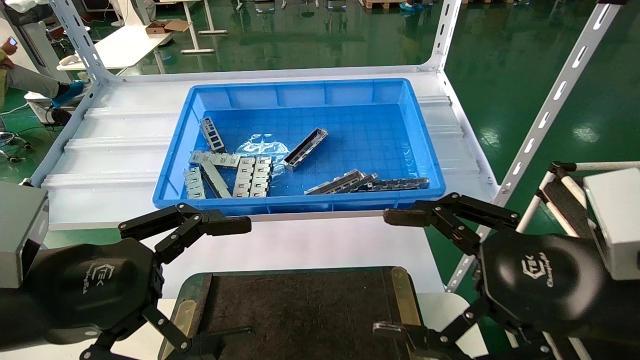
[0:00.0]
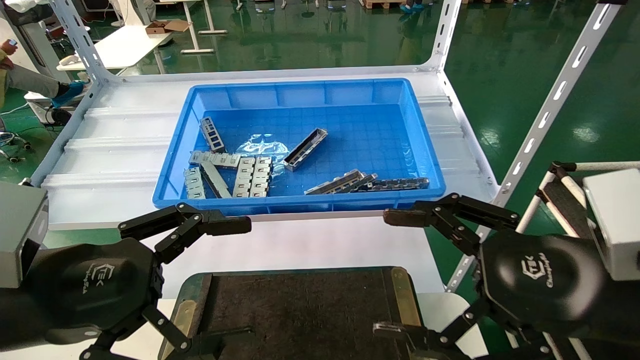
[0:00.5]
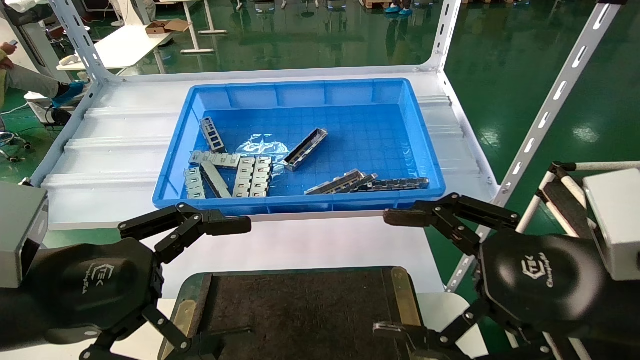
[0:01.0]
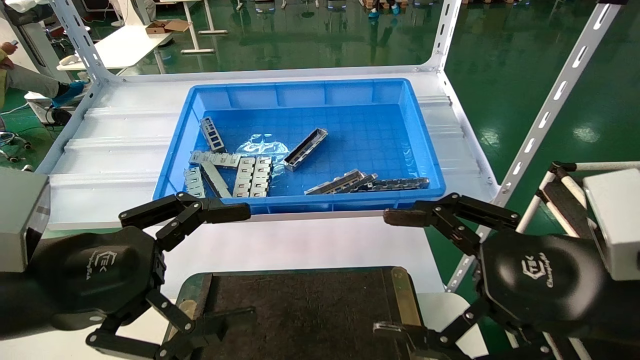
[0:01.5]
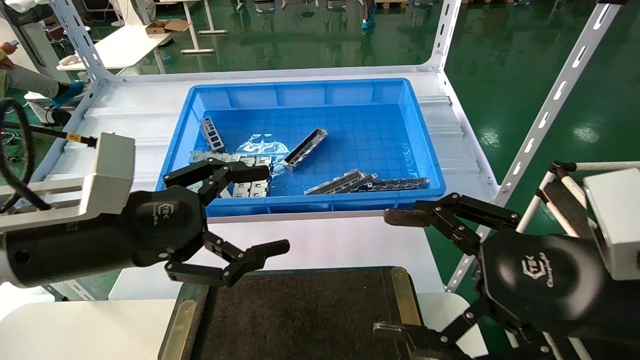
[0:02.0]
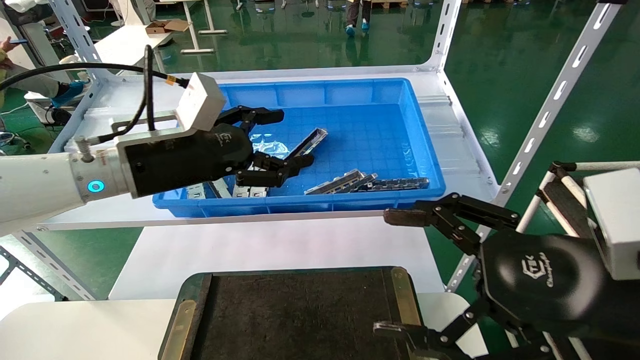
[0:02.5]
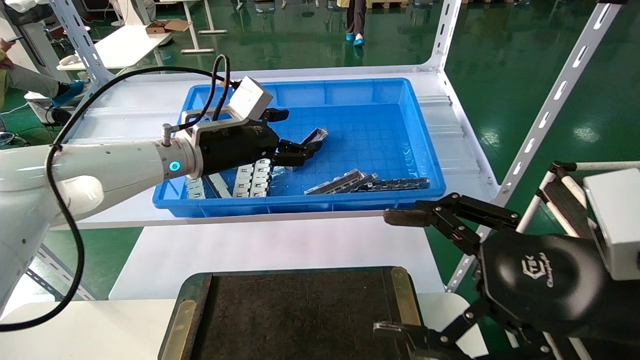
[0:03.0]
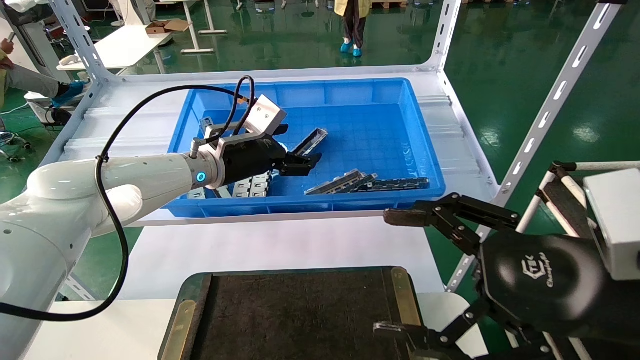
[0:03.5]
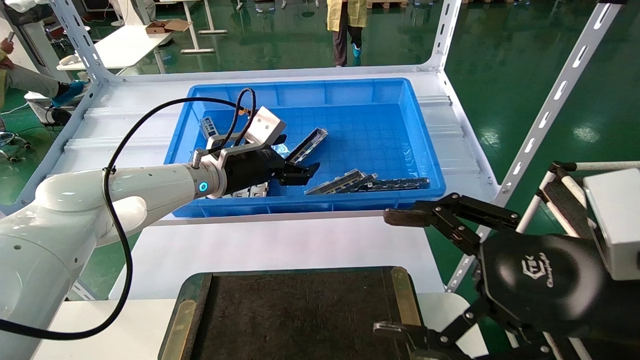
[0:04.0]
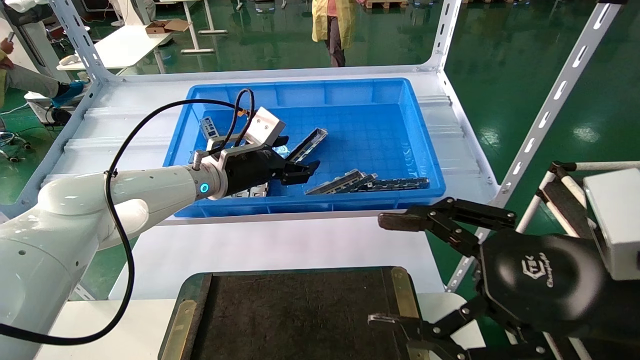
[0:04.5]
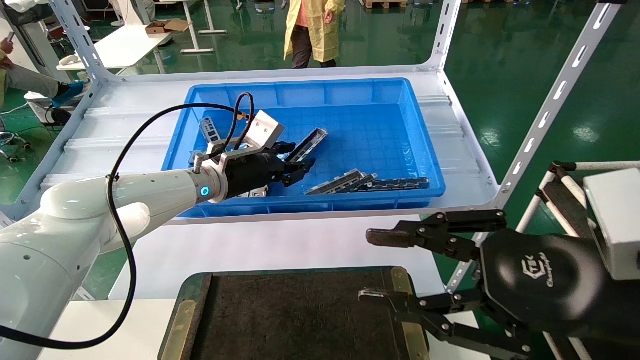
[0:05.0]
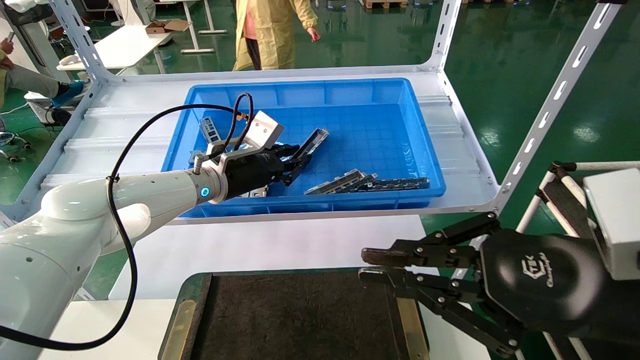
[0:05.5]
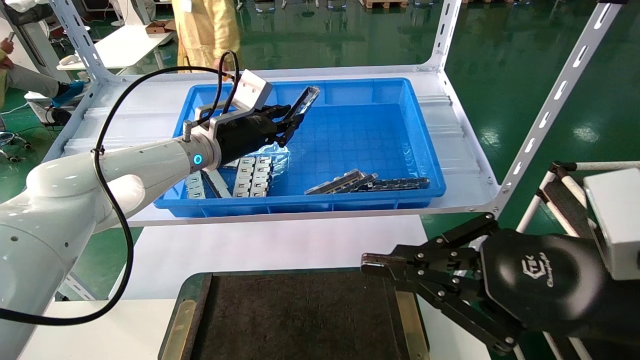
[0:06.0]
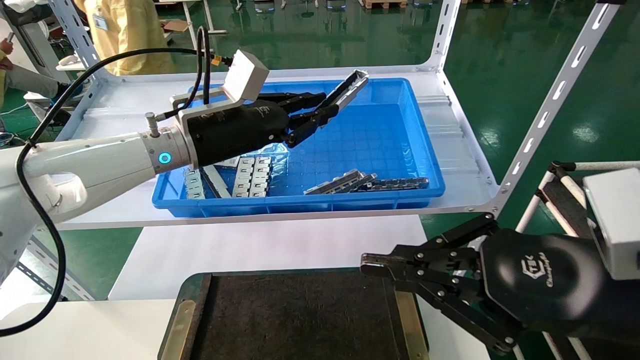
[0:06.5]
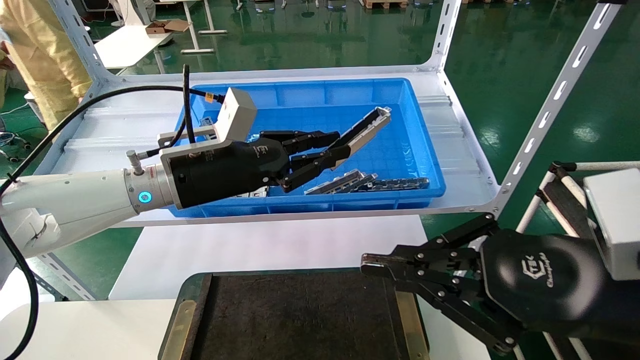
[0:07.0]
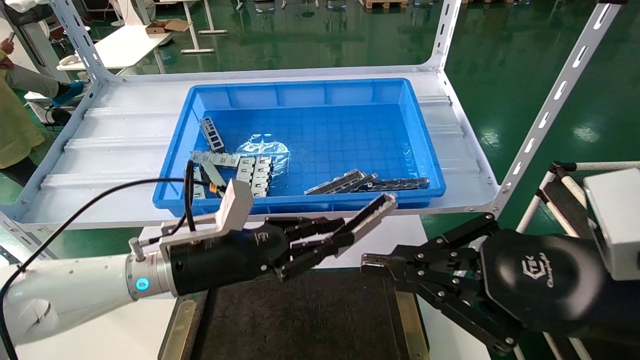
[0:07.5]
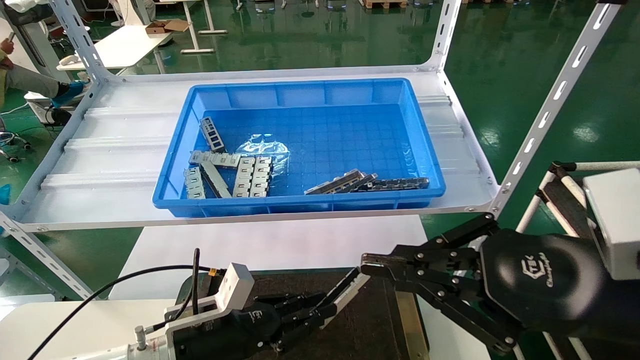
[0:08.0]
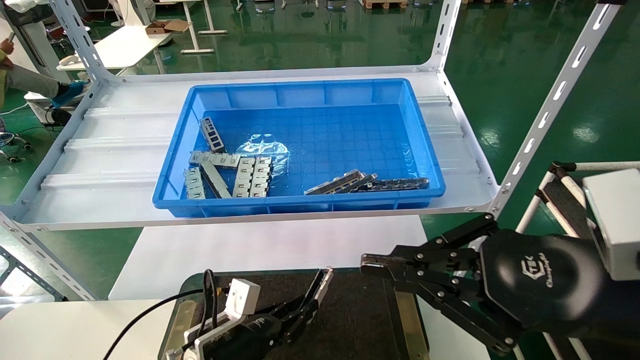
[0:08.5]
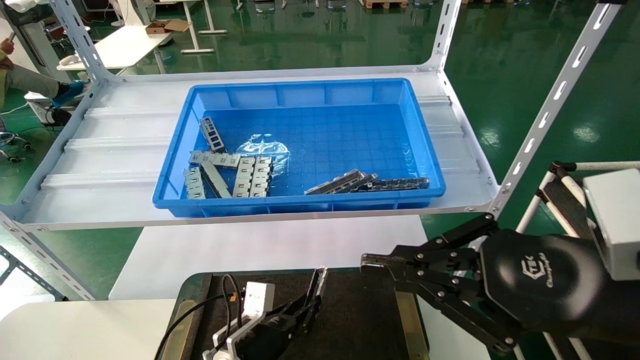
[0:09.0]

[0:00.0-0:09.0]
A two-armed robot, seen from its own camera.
Task of the whole recording: Grasp the part with one hand and place it on the black container.
Step, 0:02.0 to 0:06.0: Pick up the front USB bracket from the feeding area.
0:00.0 to 0:02.0: The left gripper is displaced forward by about 5 cm.
0:02.0 to 0:04.5: The left gripper moves forward, roughly 25 cm.
0:04.5 to 0:07.0: The right gripper closes up. Meanwhile the left gripper moves backward, roughly 10 cm, and closes up.
0:07.0 to 0:09.0: The left gripper moves downward, some 30 cm.

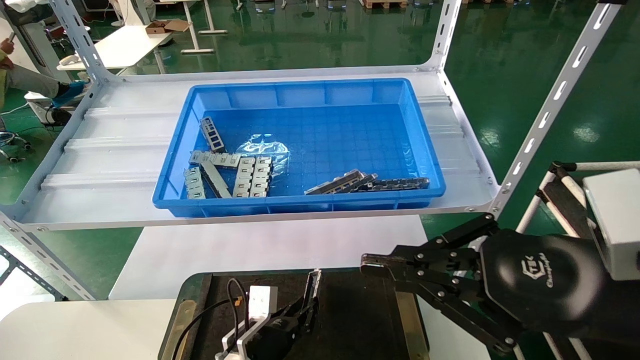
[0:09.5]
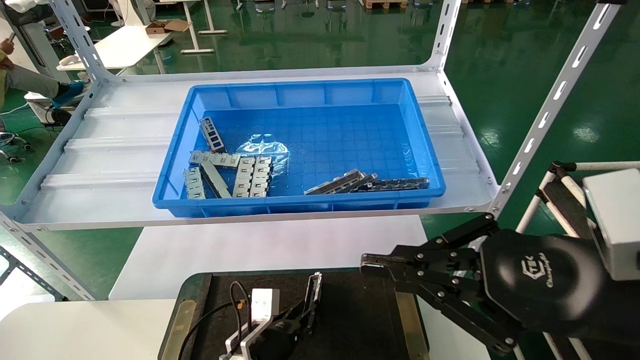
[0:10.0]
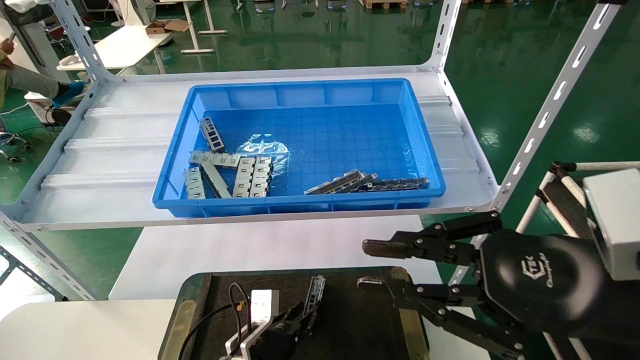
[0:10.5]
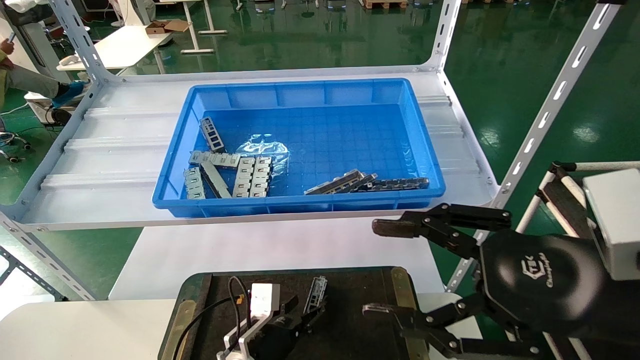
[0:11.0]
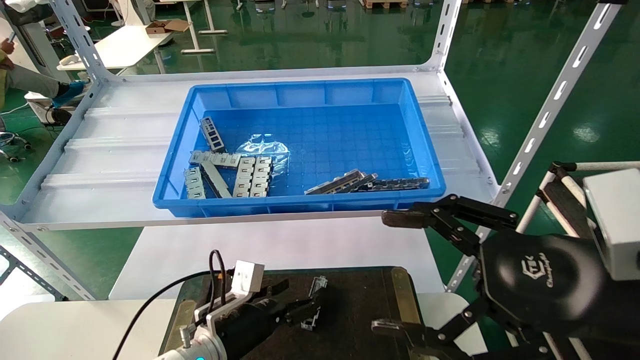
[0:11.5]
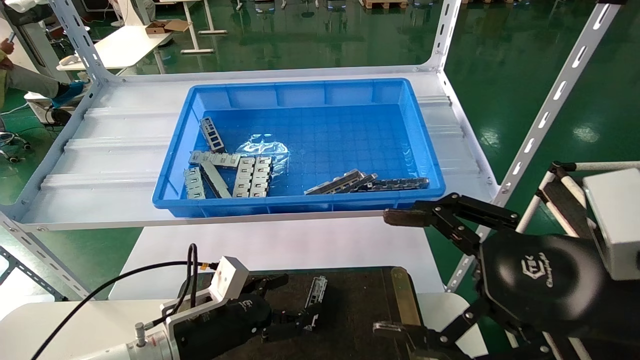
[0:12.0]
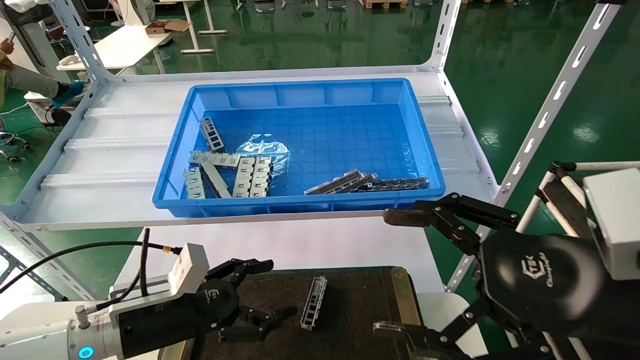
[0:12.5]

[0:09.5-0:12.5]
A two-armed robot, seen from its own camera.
Task of the whole recording: Grasp the part with one hand and place it on the black container.
0:09.5 to 0:11.0: The left gripper opens up, while the right gripper opens.
0:11.0 to 0:12.5: The right gripper opens; the left gripper heads to the left and upward, covering about 20 cm, and opens.

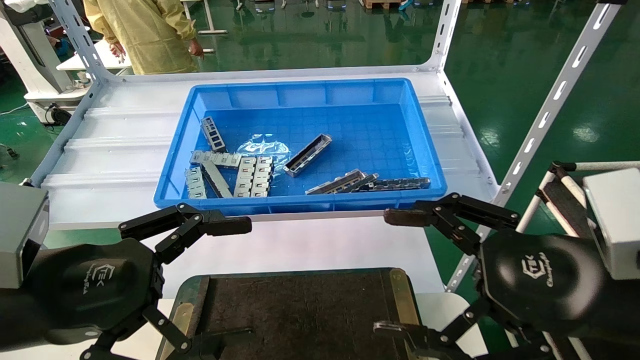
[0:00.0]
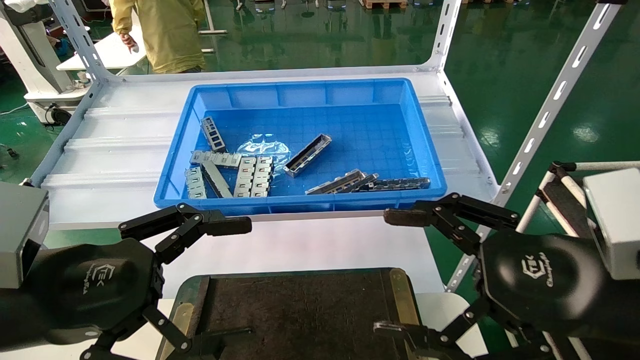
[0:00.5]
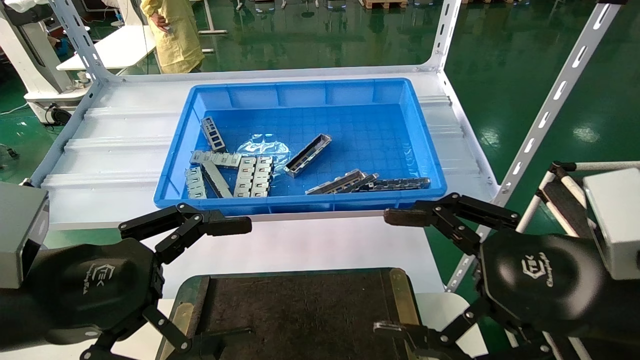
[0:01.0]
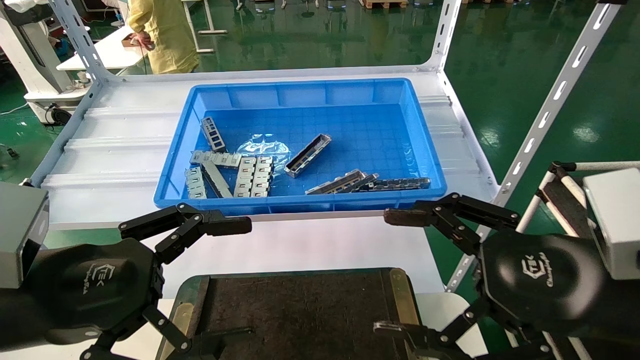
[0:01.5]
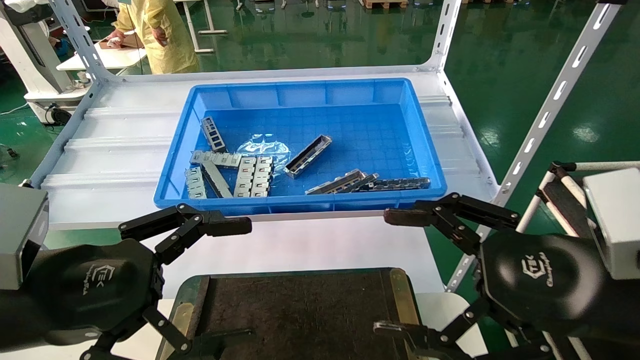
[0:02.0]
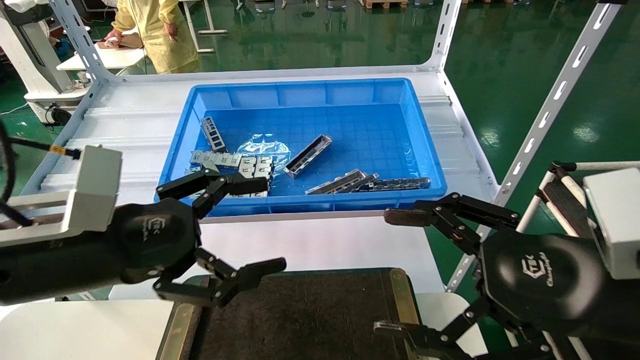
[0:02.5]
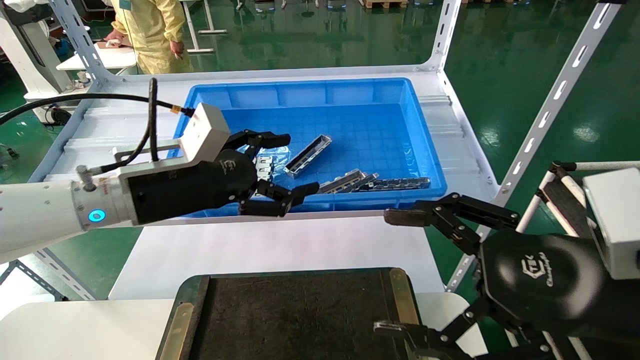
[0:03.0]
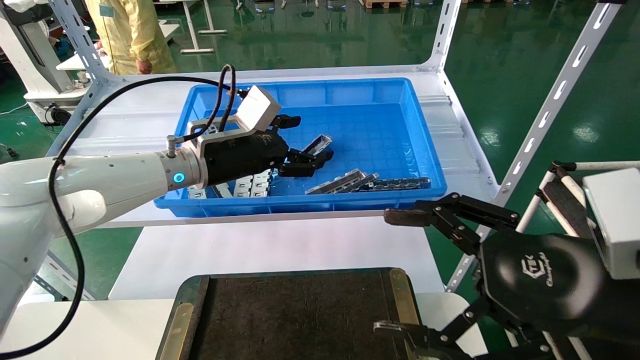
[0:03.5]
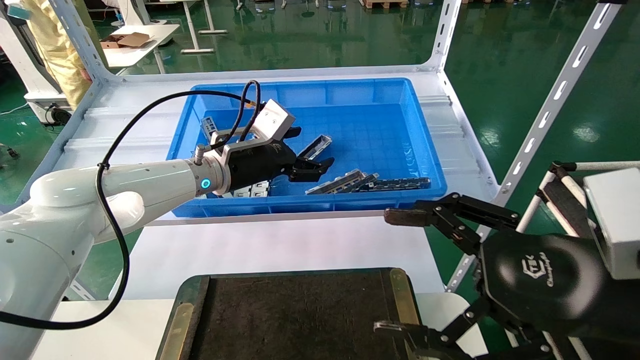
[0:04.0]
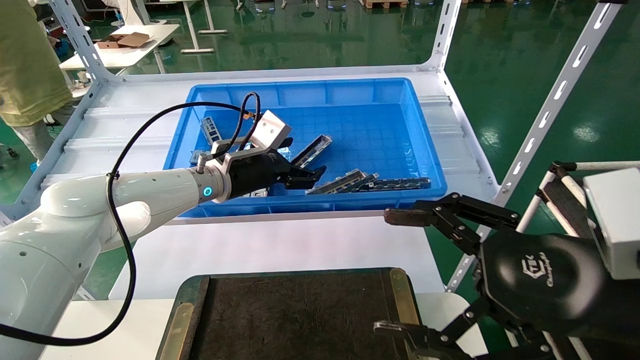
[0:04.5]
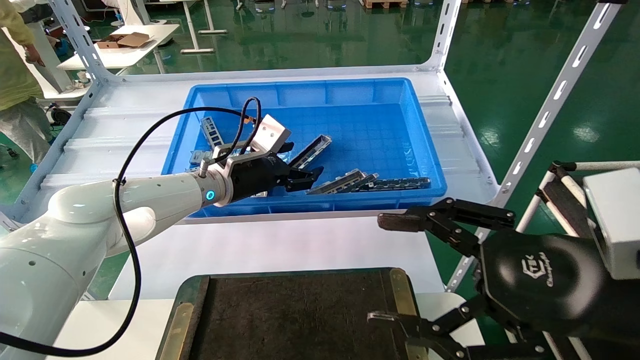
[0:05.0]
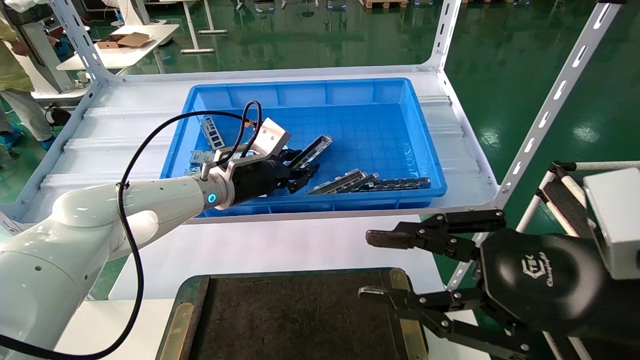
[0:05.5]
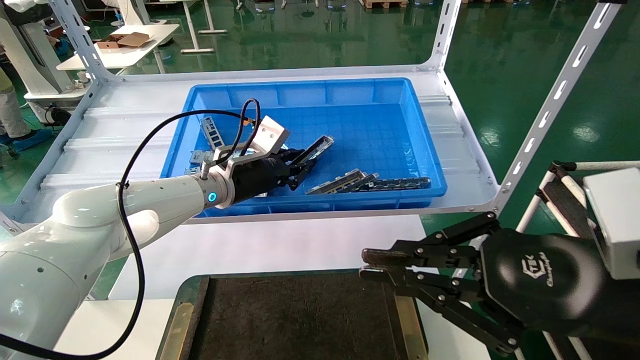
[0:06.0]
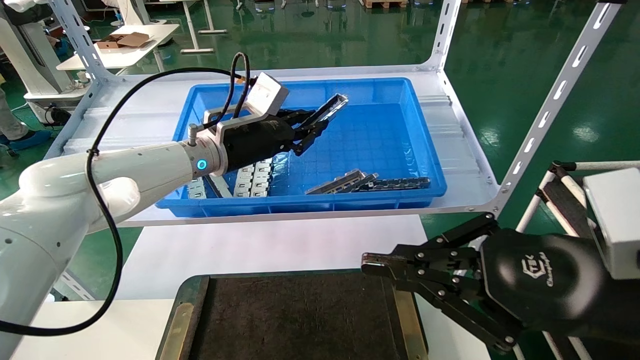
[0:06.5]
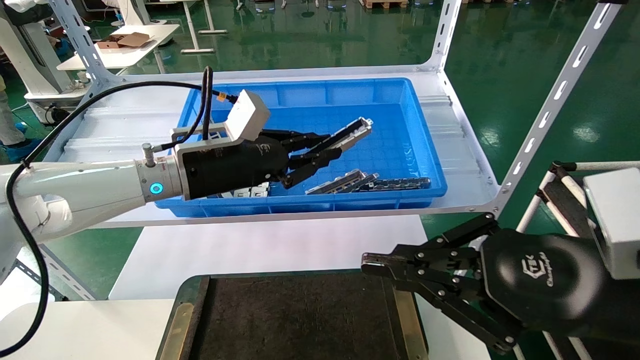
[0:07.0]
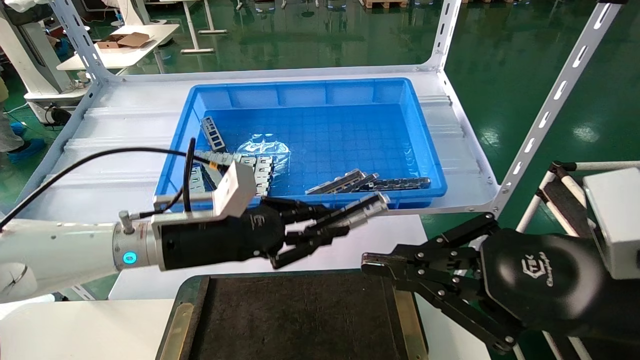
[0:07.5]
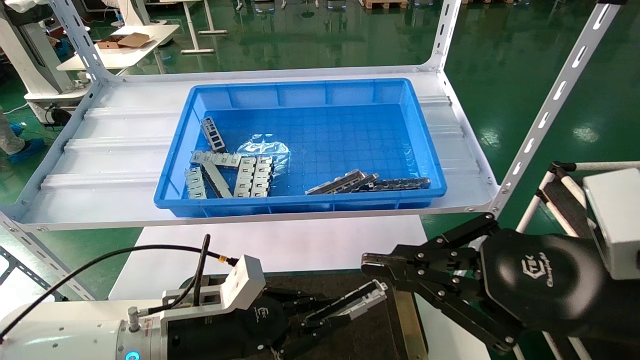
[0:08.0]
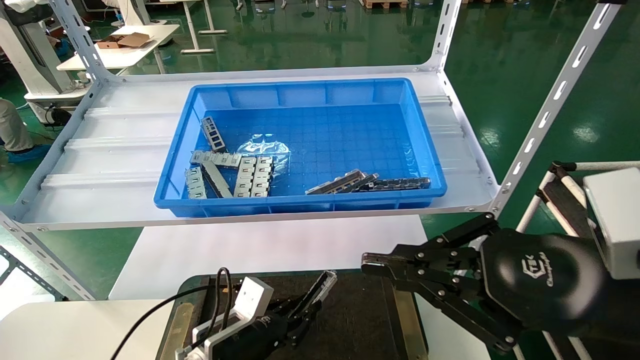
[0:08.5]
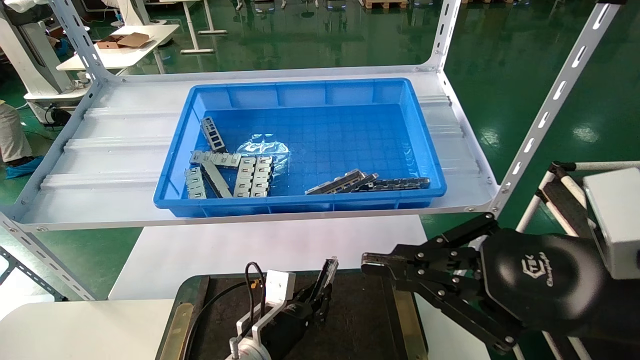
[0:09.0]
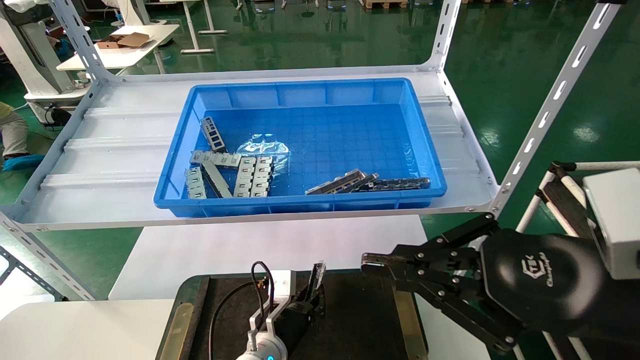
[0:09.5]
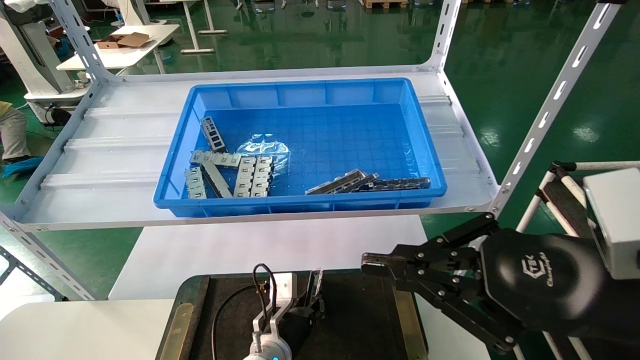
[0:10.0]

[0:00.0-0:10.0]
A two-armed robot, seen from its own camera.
Task of the whole recording: Grasp the part with one hand and place it on the black container.
Step, 0:02.5 to 0:05.5: Pick up the front USB bracket from the feeding area.
0:00.0 to 0:02.0: Neither gripper changes place.
0:02.0 to 0:04.0: The left gripper heads forward and to the right, covering roughly 30 cm.
0:04.0 to 0:06.0: The left gripper closes up, while the right gripper closes its fingers.
0:06.0 to 0:08.0: The left gripper heads backward and downward, covering some 25 cm.
0:08.0 to 0:10.0: The left gripper moves downward, to the right and forward, about 20 cm.
